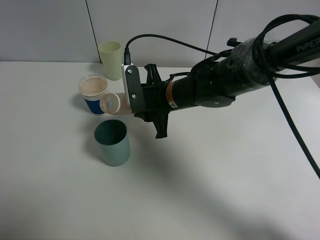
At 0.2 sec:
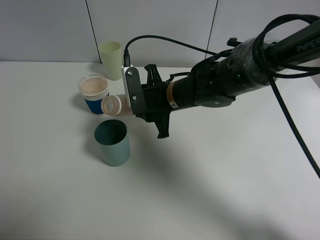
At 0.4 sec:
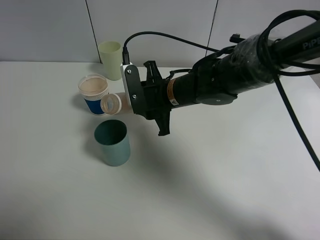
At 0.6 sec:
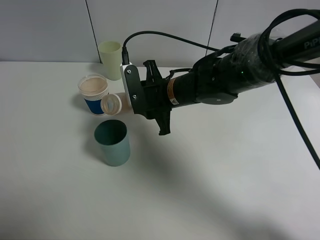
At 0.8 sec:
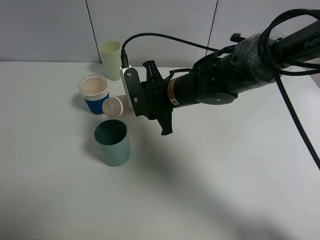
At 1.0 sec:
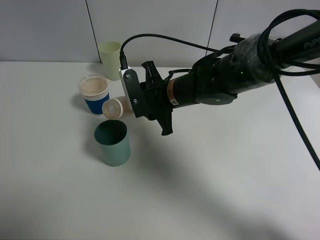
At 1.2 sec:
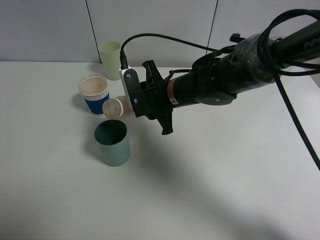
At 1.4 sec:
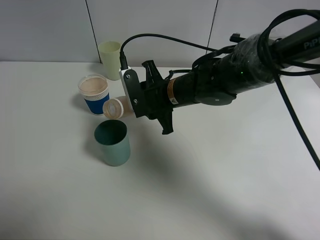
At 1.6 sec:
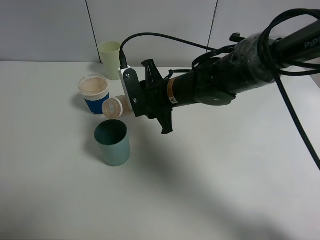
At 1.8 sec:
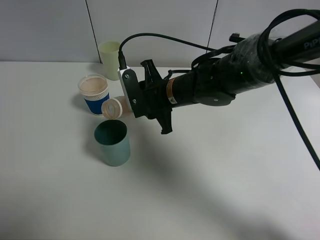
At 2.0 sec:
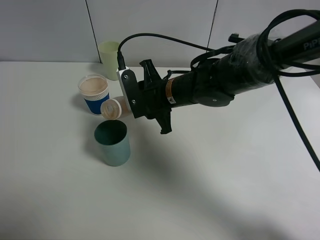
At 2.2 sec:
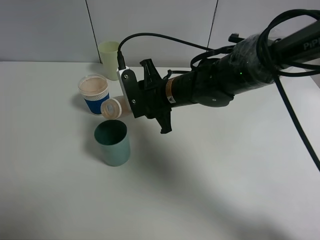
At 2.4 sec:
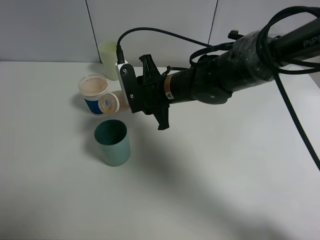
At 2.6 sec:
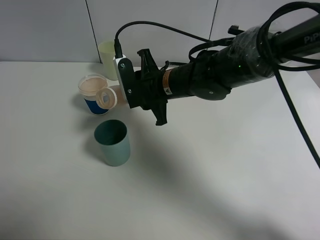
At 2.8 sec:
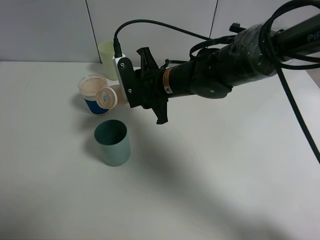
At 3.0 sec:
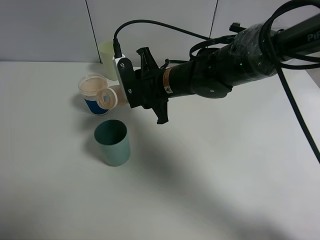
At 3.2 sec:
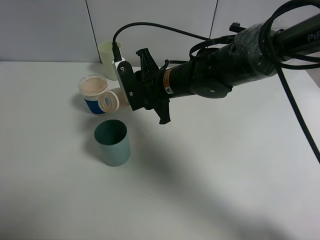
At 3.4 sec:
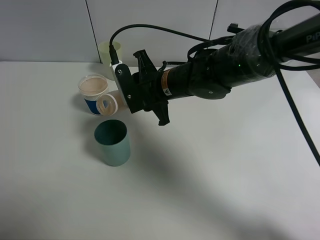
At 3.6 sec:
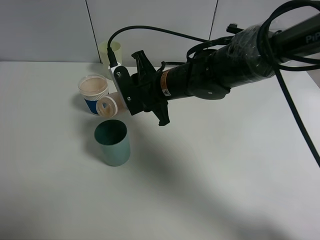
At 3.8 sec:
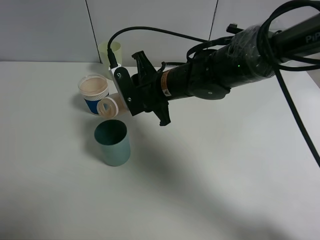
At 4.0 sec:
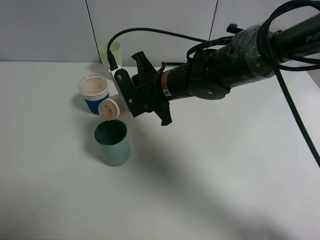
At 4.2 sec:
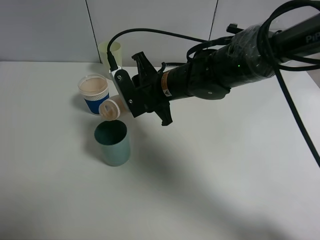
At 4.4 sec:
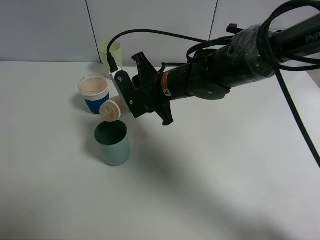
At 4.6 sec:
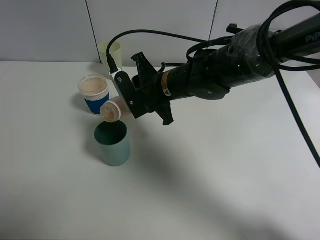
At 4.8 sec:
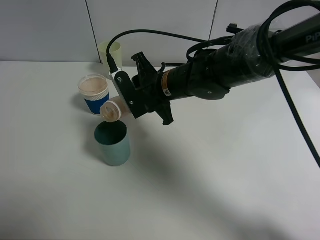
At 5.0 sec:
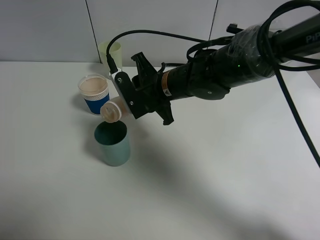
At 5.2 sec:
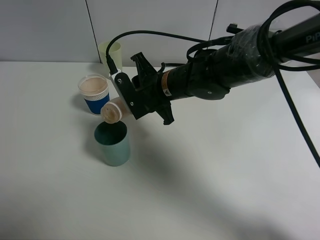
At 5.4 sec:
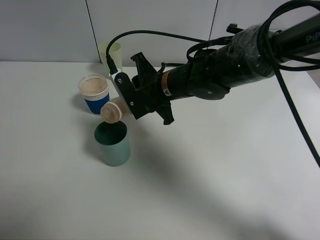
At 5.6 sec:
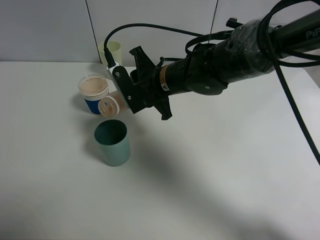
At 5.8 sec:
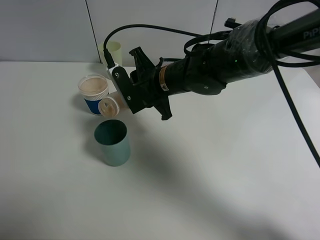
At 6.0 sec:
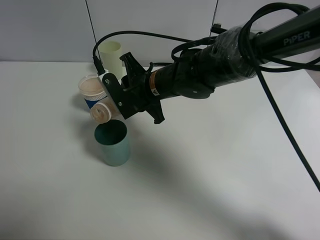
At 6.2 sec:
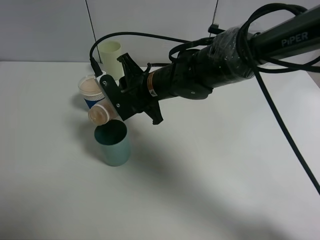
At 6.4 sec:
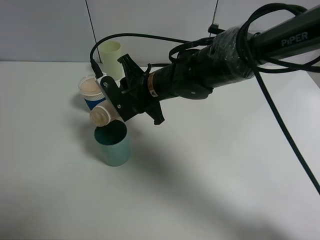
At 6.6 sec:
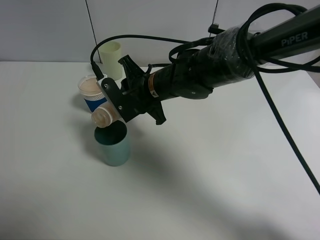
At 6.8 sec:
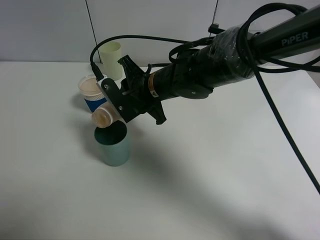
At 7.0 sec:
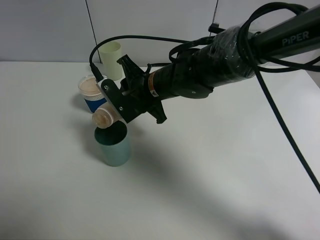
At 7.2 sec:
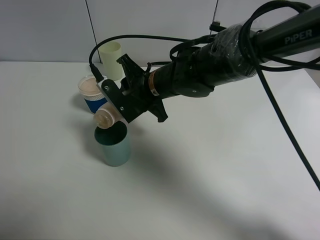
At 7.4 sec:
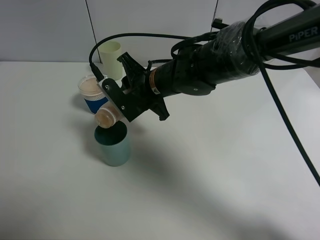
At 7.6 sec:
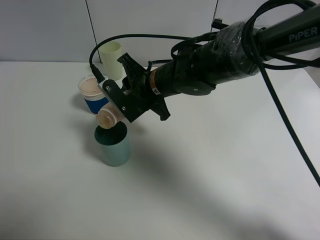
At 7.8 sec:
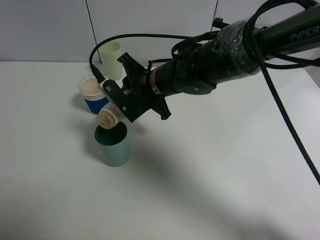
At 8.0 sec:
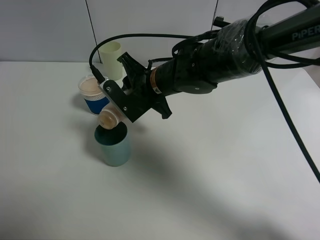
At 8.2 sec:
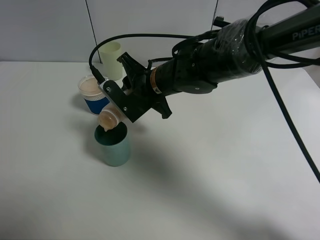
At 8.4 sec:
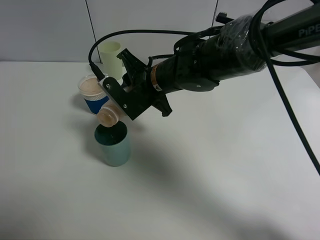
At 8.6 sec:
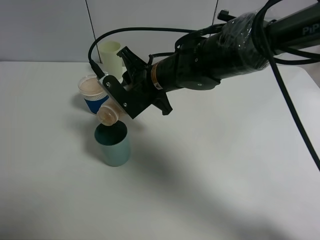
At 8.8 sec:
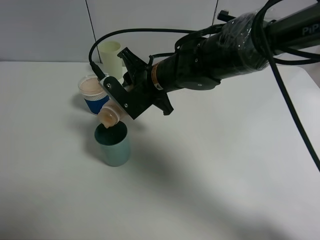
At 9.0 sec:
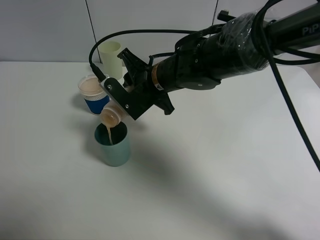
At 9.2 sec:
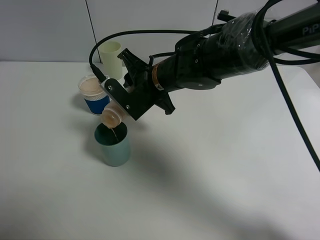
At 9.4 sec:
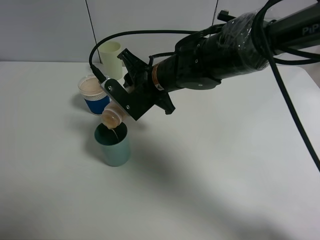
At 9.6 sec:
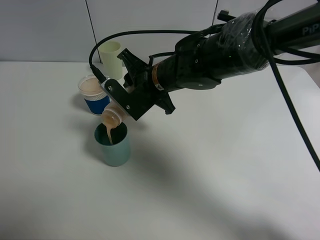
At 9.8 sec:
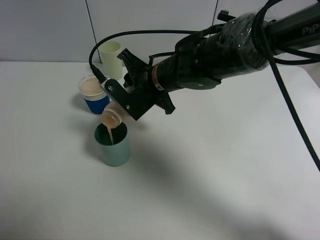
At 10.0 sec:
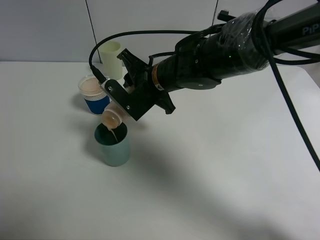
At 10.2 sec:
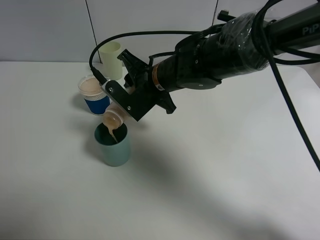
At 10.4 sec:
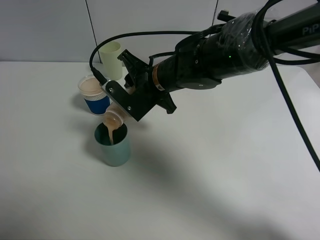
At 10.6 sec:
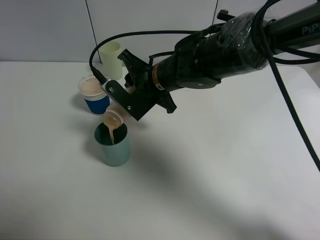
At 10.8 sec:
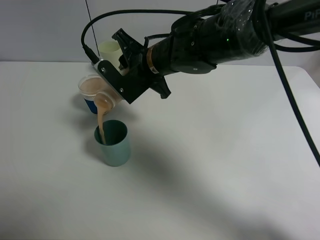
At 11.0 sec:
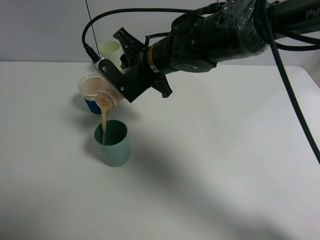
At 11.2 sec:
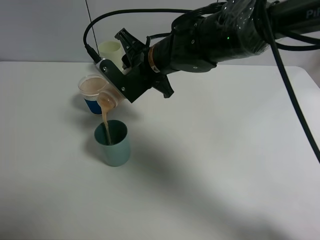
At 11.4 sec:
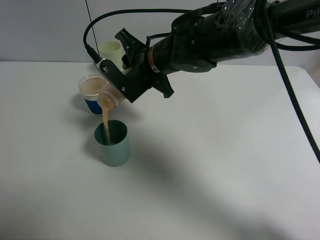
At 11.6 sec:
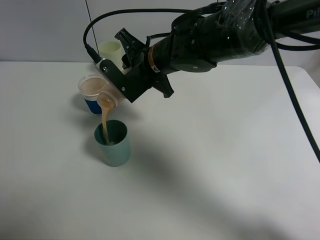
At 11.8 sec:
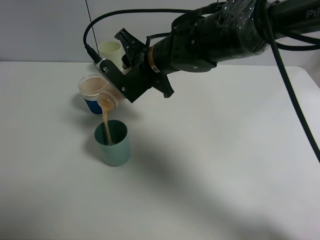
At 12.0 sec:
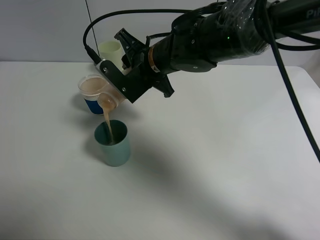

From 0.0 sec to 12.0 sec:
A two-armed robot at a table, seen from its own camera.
Task of the whole recording: use a clamp to hold the bottle of the drink, pour the beverage into a random cup, then clamp the cup containing the drink and pour the drink into another random cup.
From 0.0 sec to 3.0 sec: The grippers move only a little.
From 3.0 sec to 6.0 sec: There are only small adjustments of the grippers.
From 6.0 sec to 7.6 sec: The grippers stay close to where they were, moving slightly.
From 7.6 sec to 9.0 sec: The two grippers keep their place.
From 9.0 sec to 10.4 sec: Neither gripper changes place.
From 10.4 sec to 12.0 sec: The grippers make only small movements.

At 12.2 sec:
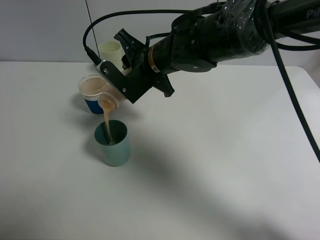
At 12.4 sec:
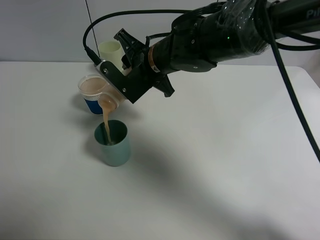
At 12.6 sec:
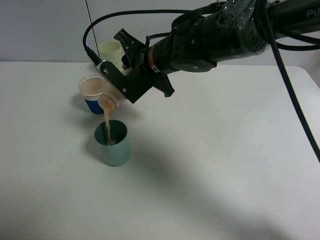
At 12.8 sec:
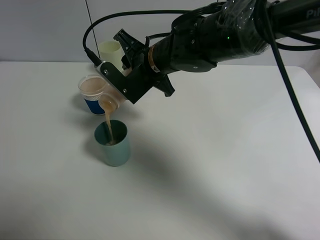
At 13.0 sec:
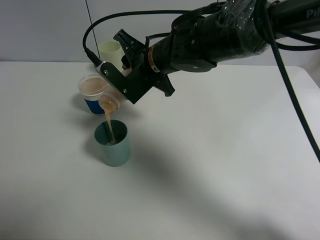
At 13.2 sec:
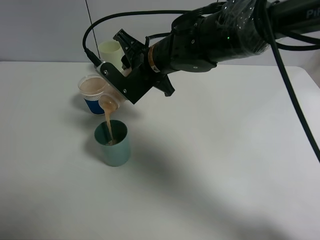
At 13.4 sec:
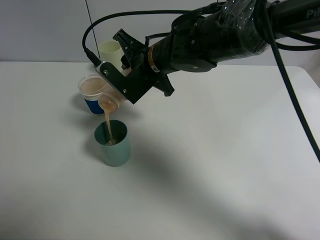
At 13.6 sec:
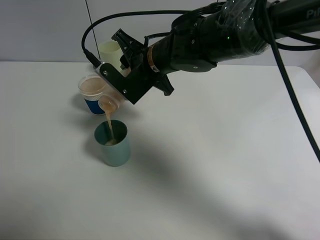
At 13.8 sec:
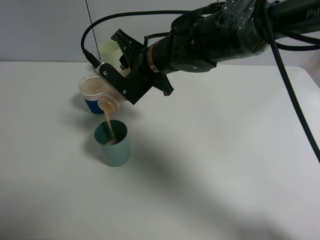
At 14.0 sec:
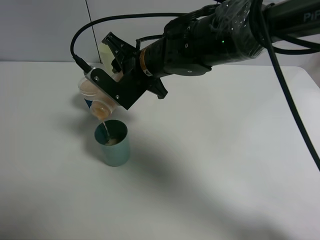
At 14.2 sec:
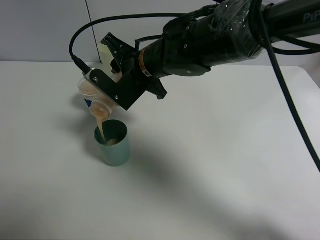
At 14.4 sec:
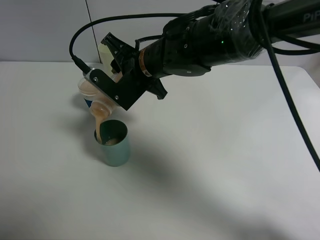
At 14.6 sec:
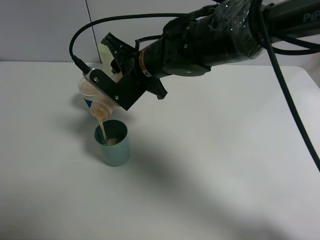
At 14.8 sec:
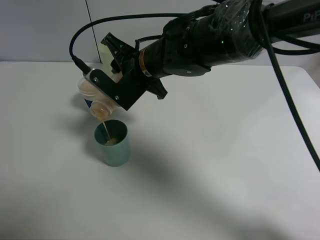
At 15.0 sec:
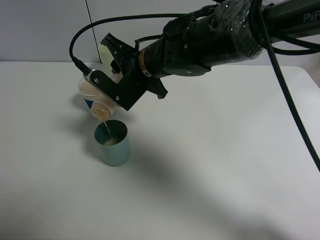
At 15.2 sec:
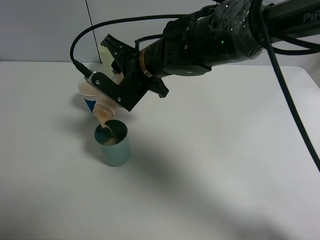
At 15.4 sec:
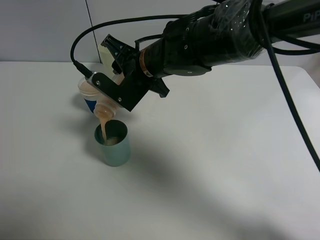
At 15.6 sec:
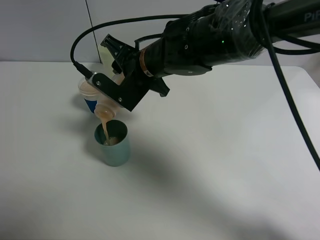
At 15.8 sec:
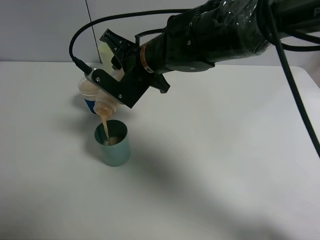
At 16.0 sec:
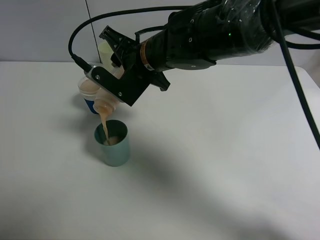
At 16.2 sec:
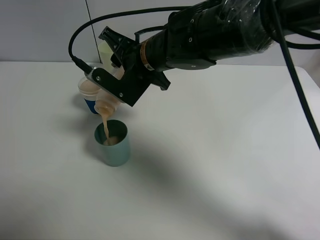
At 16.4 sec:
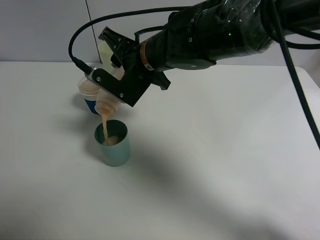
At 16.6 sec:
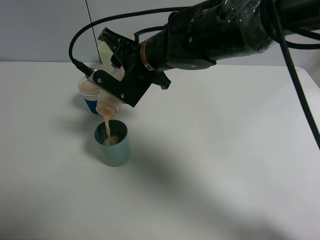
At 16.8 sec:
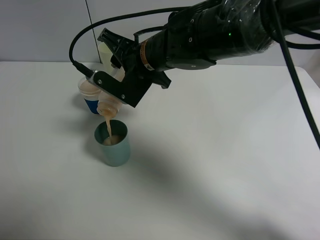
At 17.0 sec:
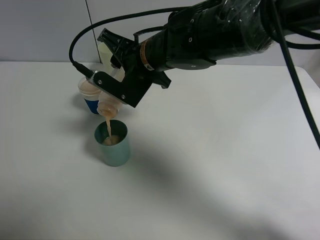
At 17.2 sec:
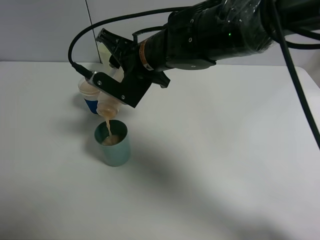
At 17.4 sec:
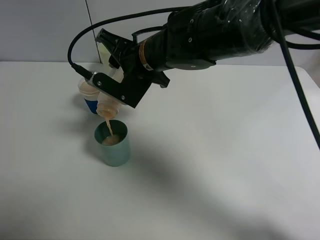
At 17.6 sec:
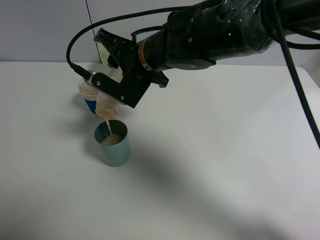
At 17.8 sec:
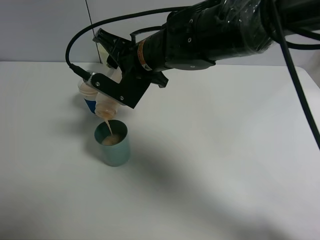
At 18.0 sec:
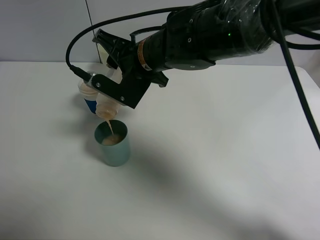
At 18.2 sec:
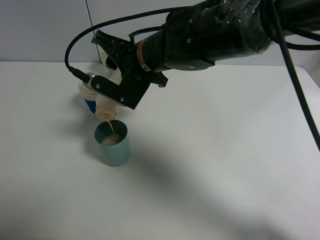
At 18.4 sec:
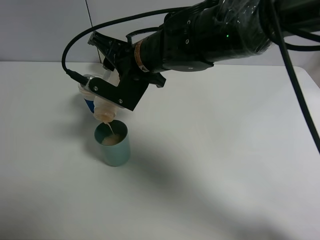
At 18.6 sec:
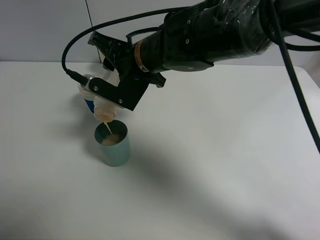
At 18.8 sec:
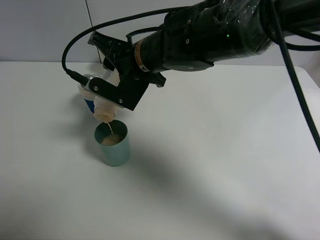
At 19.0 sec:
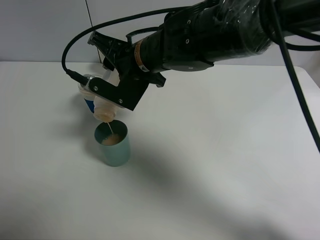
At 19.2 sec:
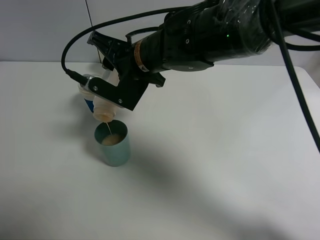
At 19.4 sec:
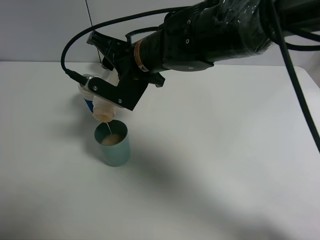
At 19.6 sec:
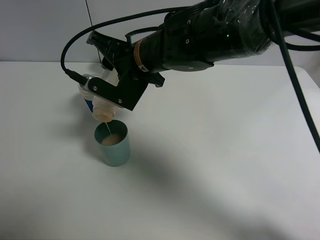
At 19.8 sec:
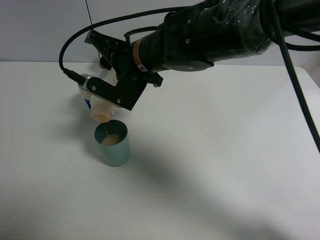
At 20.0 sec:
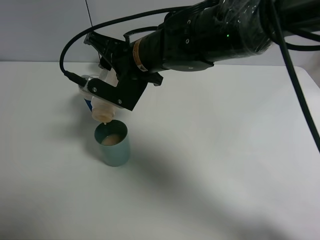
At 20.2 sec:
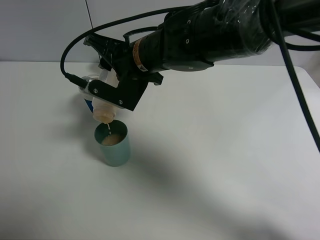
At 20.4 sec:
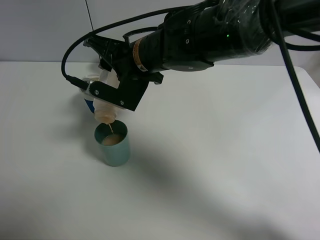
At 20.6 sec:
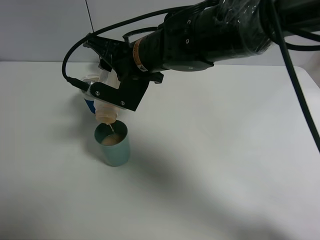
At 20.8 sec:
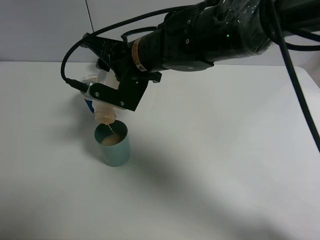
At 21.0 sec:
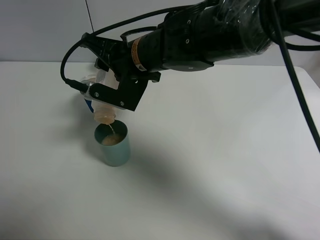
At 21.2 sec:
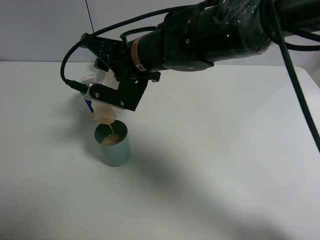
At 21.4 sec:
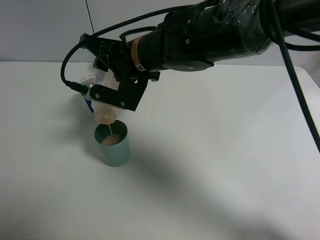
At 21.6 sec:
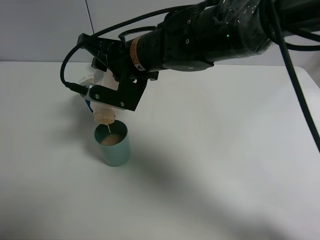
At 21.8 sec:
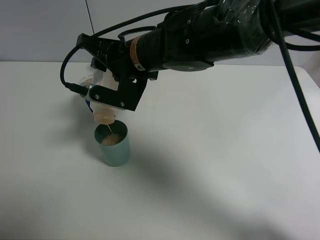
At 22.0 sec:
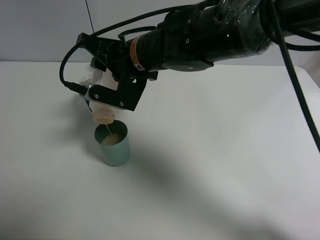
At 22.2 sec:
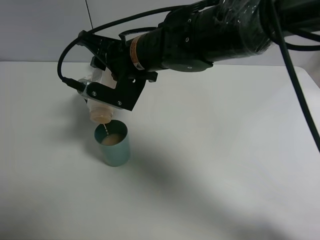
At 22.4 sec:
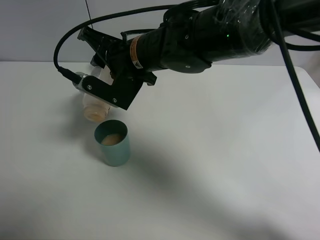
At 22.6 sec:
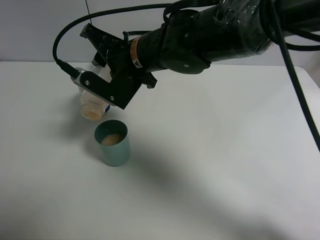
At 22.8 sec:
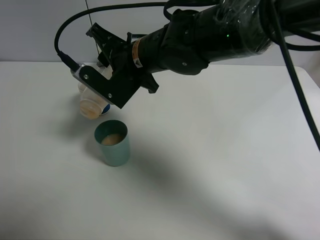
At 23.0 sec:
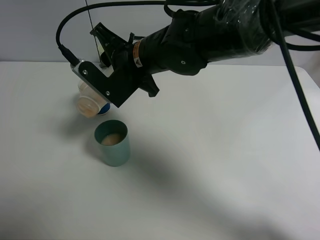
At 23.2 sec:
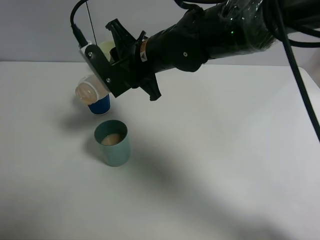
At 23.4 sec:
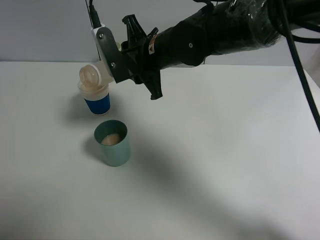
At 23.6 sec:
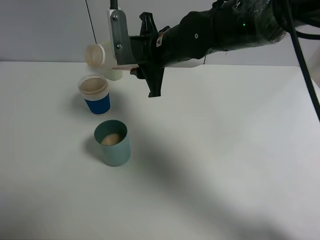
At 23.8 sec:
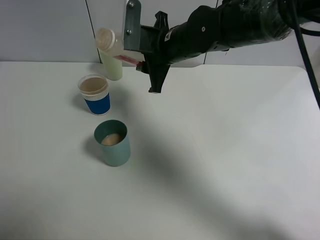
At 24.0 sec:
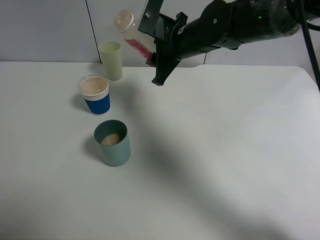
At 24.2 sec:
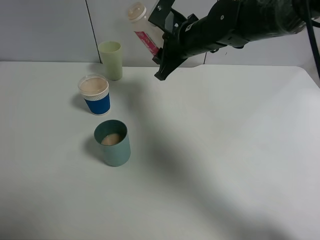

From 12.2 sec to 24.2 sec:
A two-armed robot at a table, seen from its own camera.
Task of the whole recording: use a clamp to hold the bottle of the drink, pour the beverage into a random cup, then clamp the cup containing the drink and pour the drink into another random cup.
Step, from 12.2 sec to 23.6 sec: Pour the drink into the blue plastic cup with right gripper.
From 12.2 sec to 13.8 sec: Both grippers stay about where they are.
From 13.8 sec to 18.2 sec: There are only small adjustments of the grippers.
From 18.2 sec to 19.8 sec: Both grippers stay put.
From 19.8 sec to 22.6 sec: The grippers stay close to where they were, moving slightly.
From 22.6 sec to 24.2 sec: The right gripper heads to the right and forward, covering some 10 cm.
